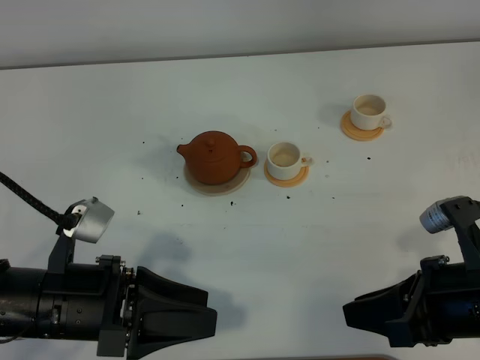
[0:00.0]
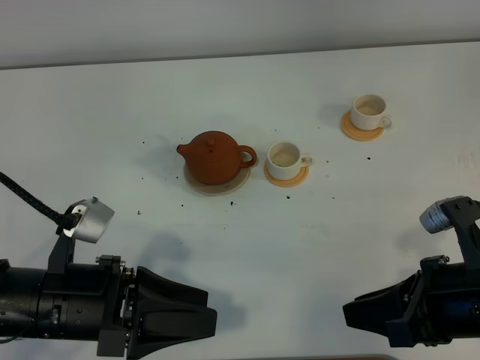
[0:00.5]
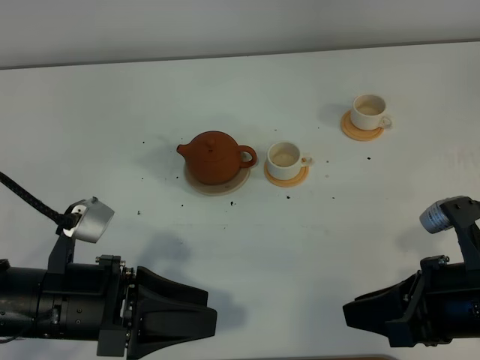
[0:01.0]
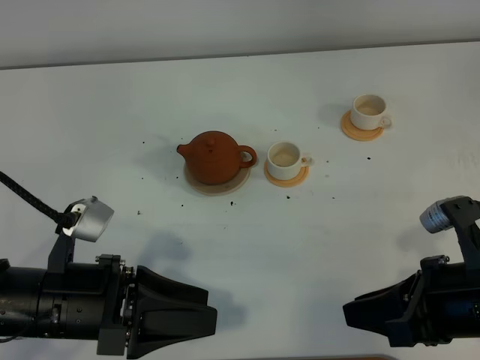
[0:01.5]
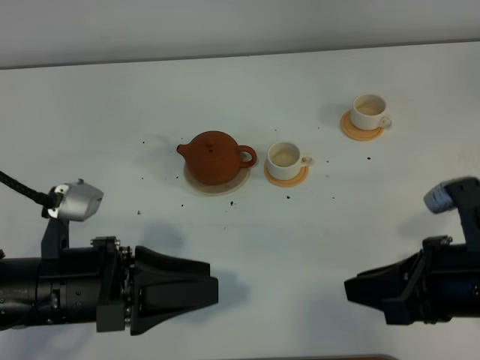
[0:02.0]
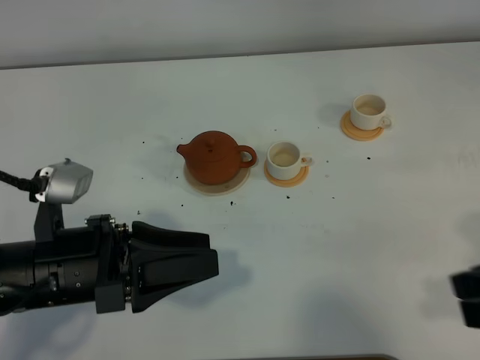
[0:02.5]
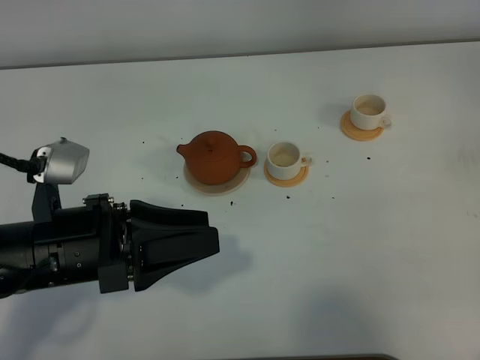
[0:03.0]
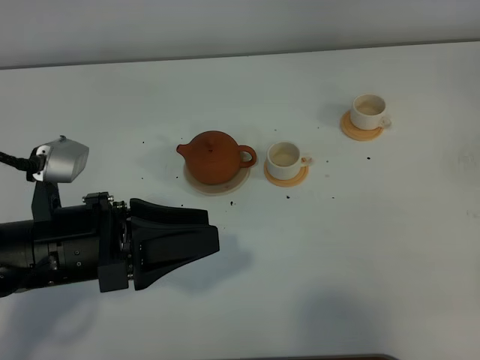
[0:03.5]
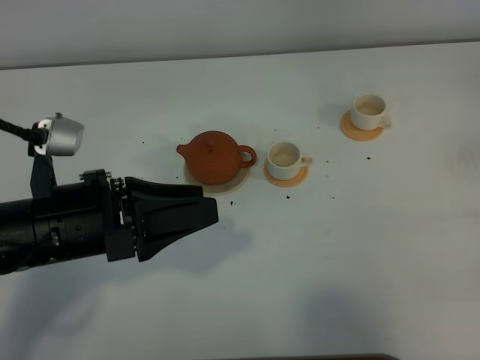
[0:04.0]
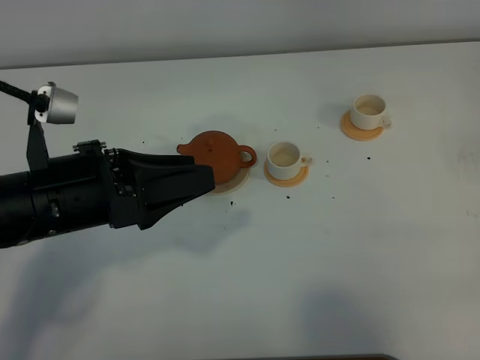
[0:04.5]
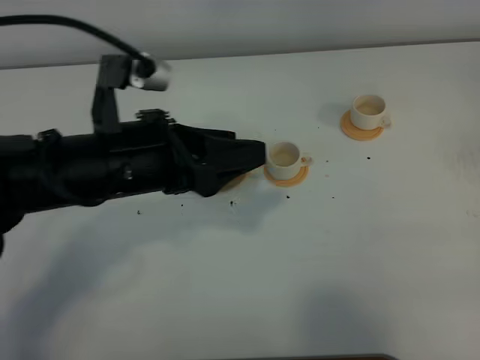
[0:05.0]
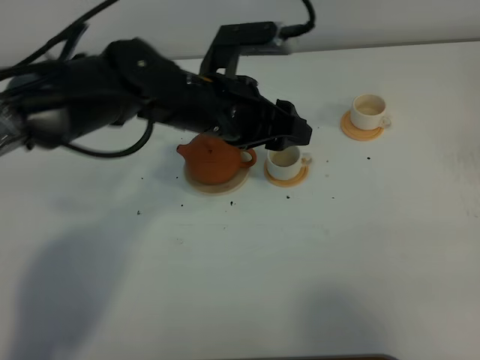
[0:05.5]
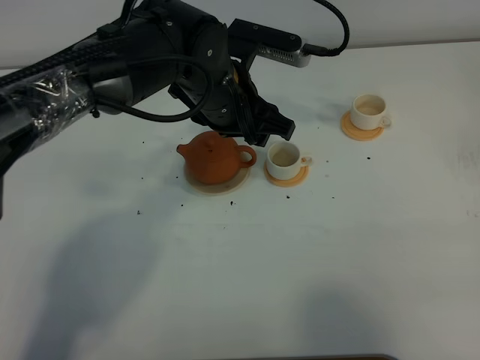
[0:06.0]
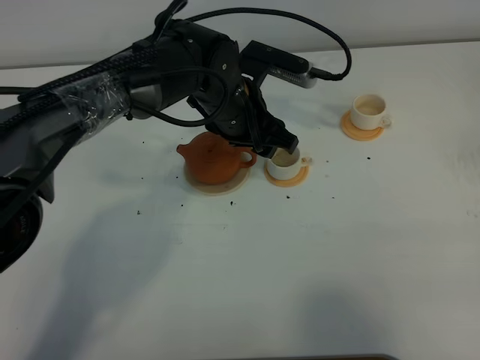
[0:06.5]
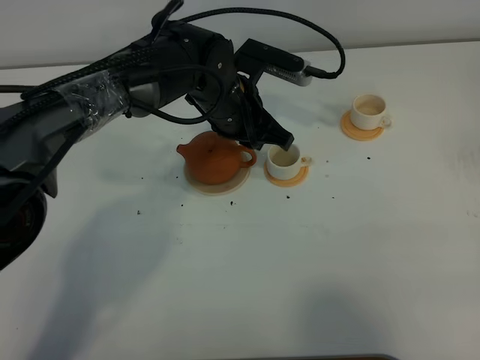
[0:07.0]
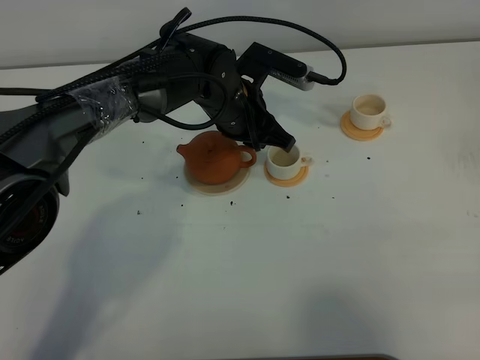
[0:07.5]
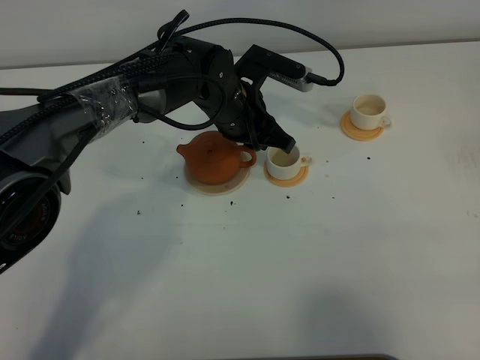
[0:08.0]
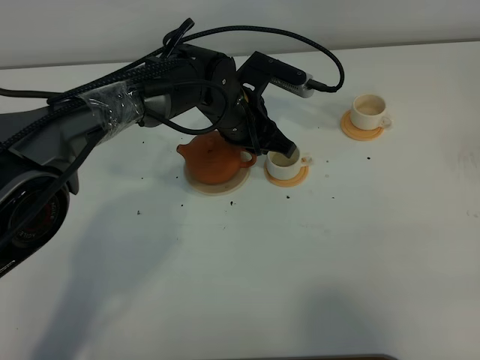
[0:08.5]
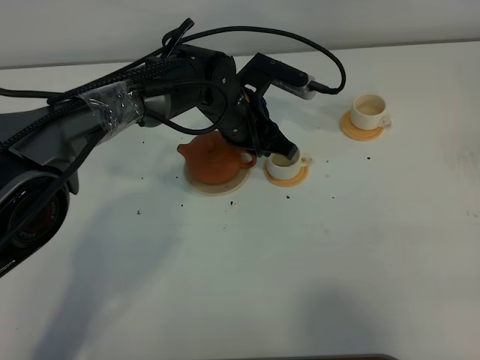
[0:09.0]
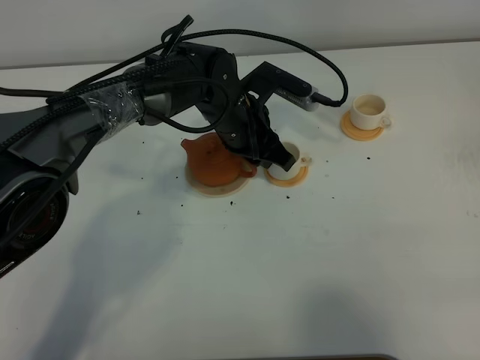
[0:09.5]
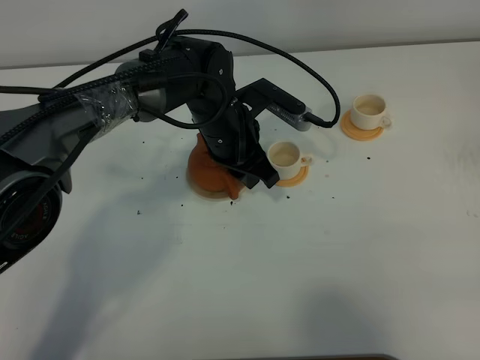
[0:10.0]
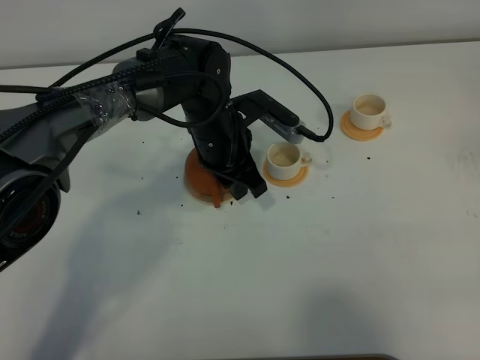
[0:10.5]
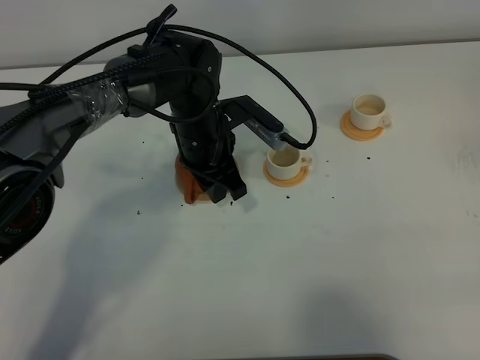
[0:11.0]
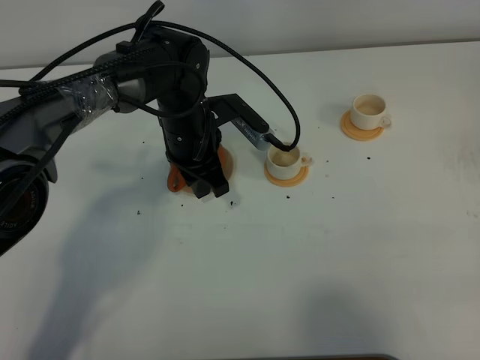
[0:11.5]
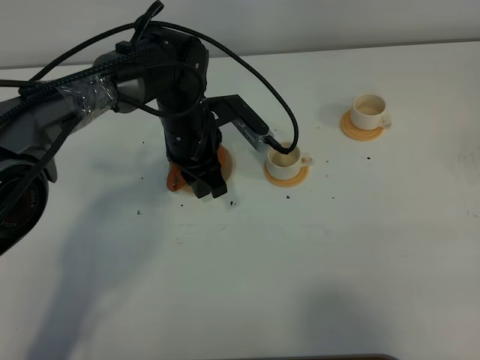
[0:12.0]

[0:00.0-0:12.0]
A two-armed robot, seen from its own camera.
Task of the whole recording: grasp the brown teapot and pour the tea into the two white teacups one by one, put the brown teapot back in its original place.
0:00.0 to 0:02.0: The grippers make only small movements.
0:02.0 to 0:04.0: The right gripper heads backward, to the right and upward, covering roughly 20 cm. Meanwhile the left gripper ends up approximately 5 cm from where it was.
0:04.0 to 0:06.0: The left gripper shifts about 25 cm forward and to the right.
0:06.0 to 0:08.0: The left gripper moves downward, approximately 5 cm, and closes up.
0:08.0 to 0:10.0: The grippers move only a little.
0:10.0 to 0:12.0: The grippers make only small movements.

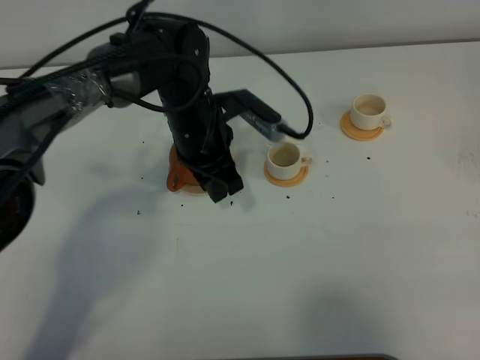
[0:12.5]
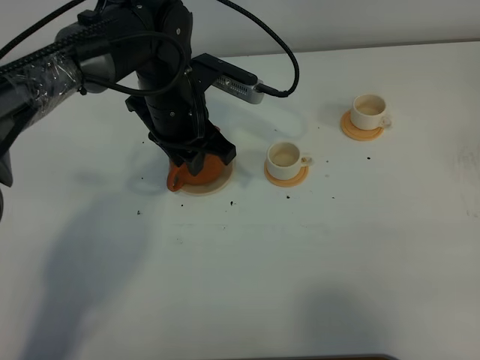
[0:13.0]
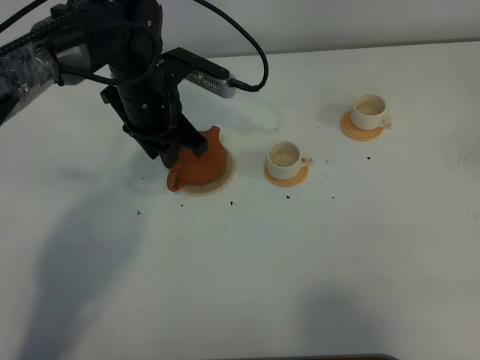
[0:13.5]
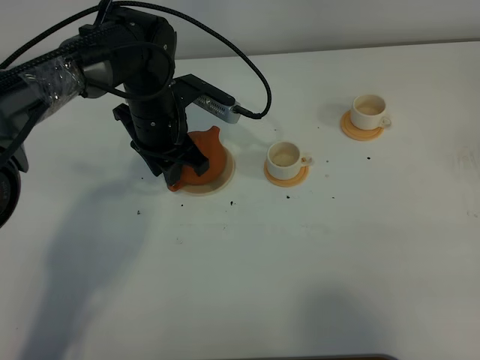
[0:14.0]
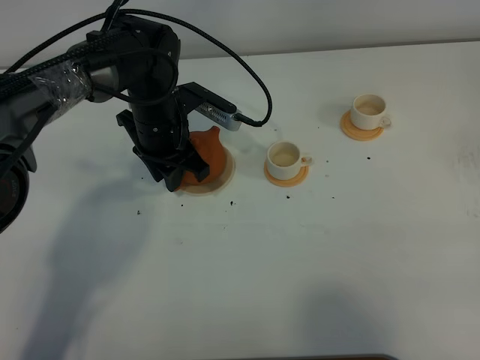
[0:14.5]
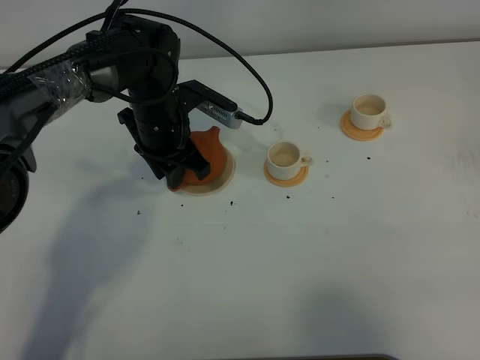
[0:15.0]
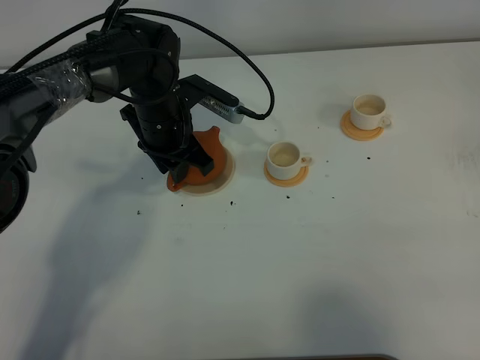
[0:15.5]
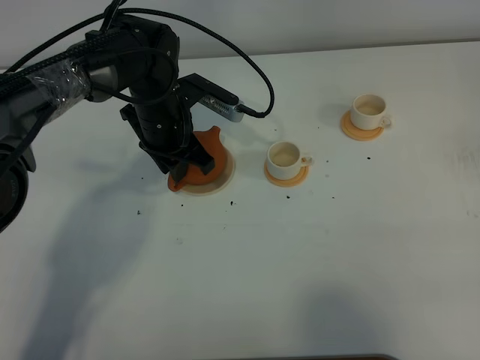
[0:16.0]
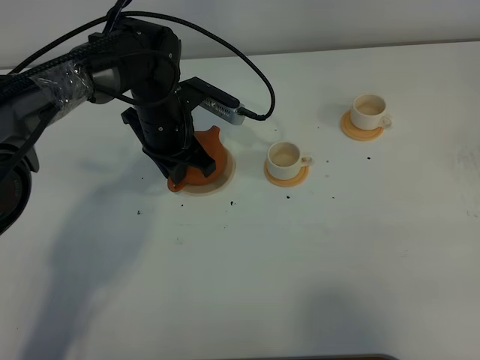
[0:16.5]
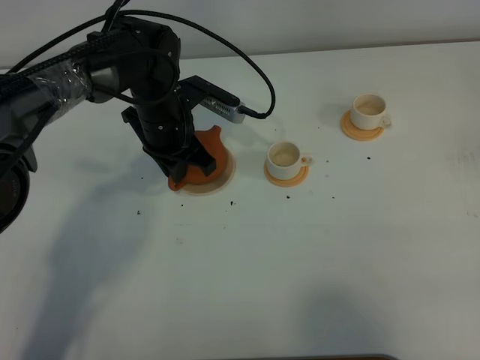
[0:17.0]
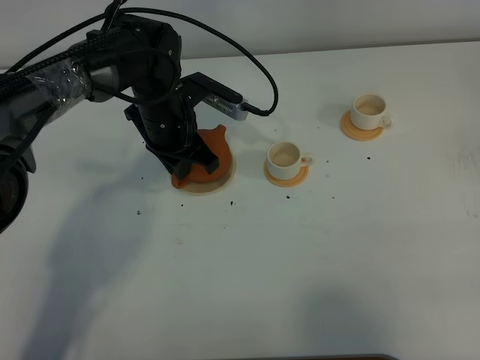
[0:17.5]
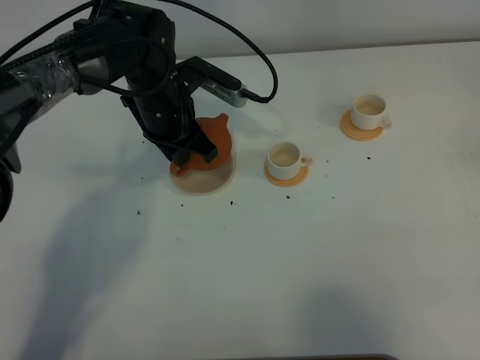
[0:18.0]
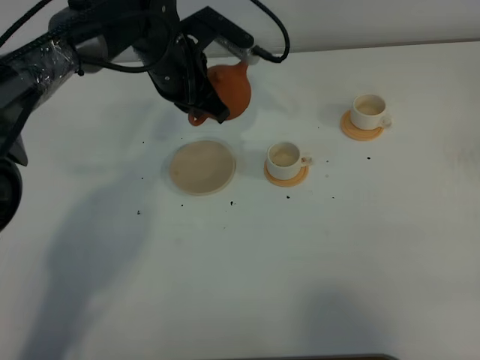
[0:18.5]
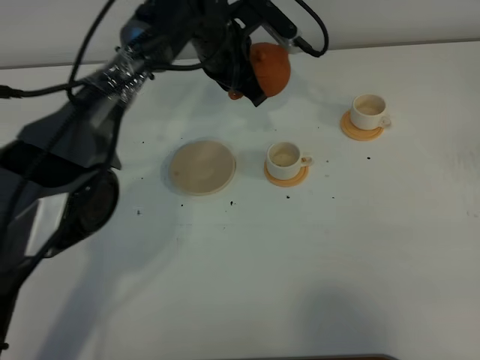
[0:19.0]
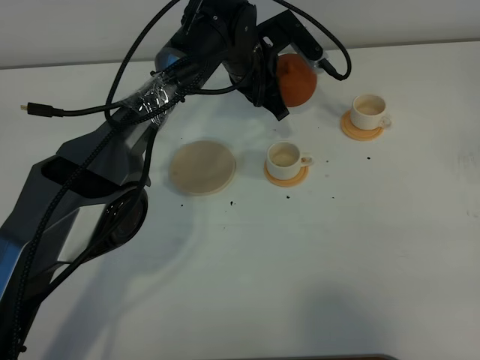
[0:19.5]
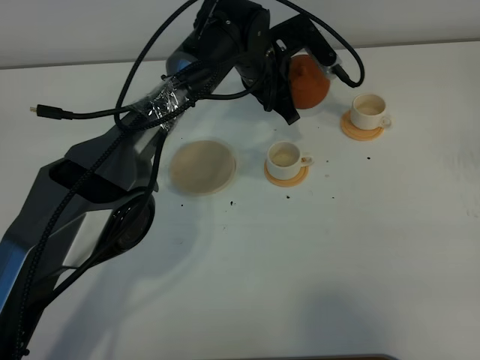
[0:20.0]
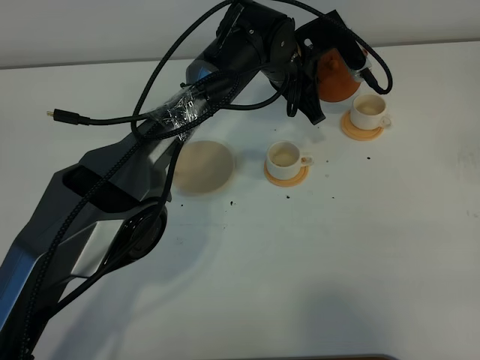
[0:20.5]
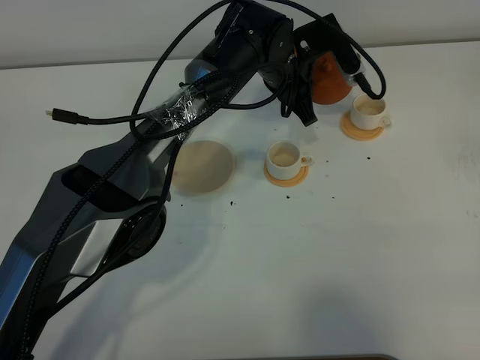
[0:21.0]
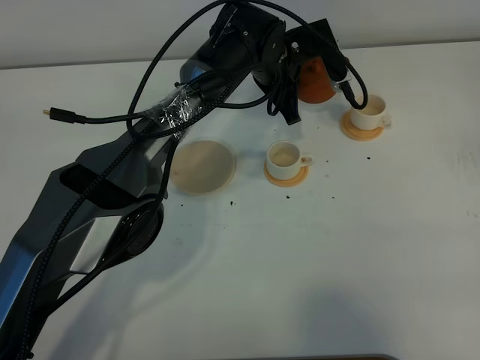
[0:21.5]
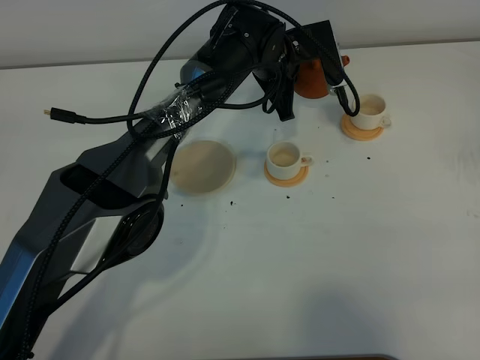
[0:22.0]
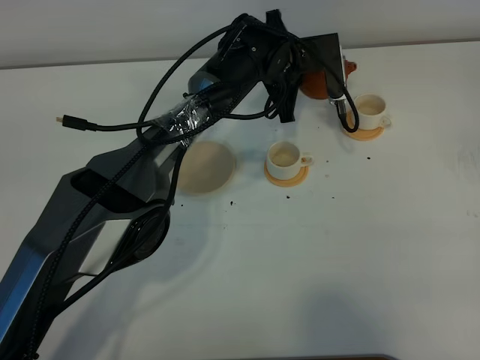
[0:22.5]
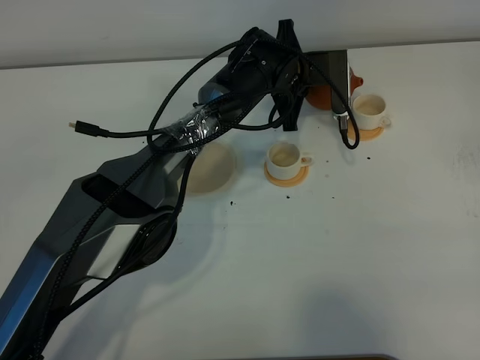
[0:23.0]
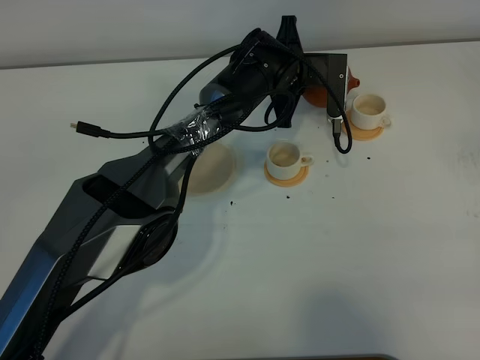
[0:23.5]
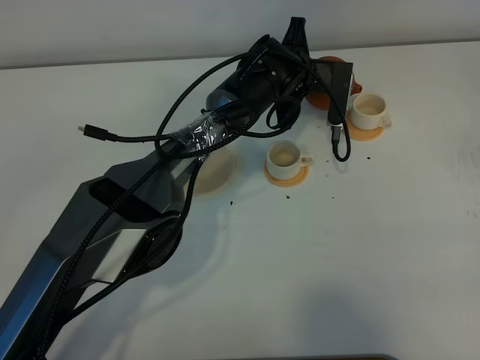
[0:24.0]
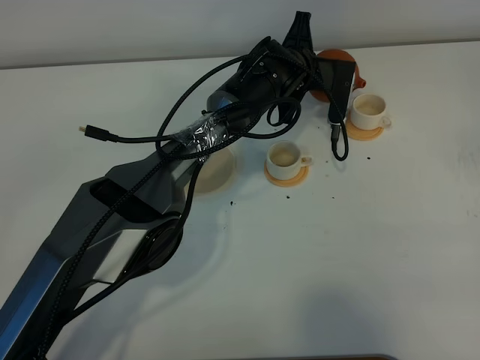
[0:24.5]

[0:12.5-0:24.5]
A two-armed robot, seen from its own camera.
Task of the whole recording: grasp the brown teapot and pour the tea into the two white teacups one by one, put the brown teapot back in its original place.
Step, 0:12.5 to 0:18.0: Pick up the teapot with the left gripper.
0:12.5 to 0:14.5: The left gripper travels to the left by about 5 cm.
0:14.5 to 0:16.5: The left gripper closes up.
0:16.5 to 0:18.5: The left gripper shifts some 5 cm upward.
0:18.5 to 0:20.5: The left gripper is displaced to the right by approximately 15 cm.

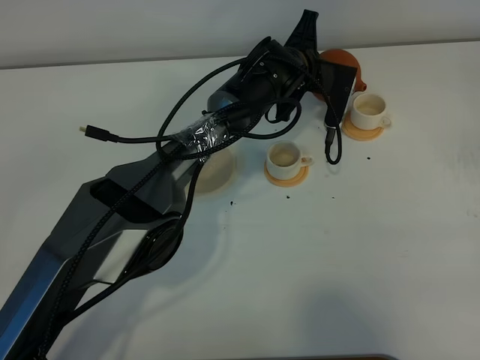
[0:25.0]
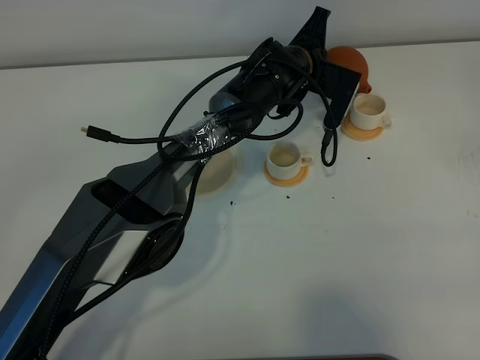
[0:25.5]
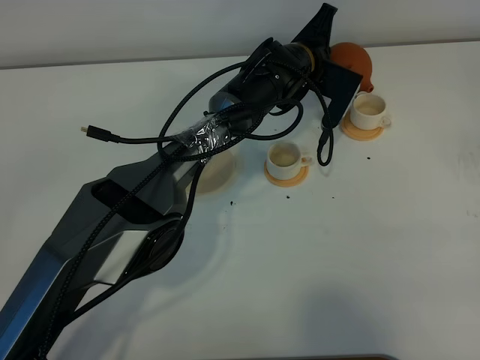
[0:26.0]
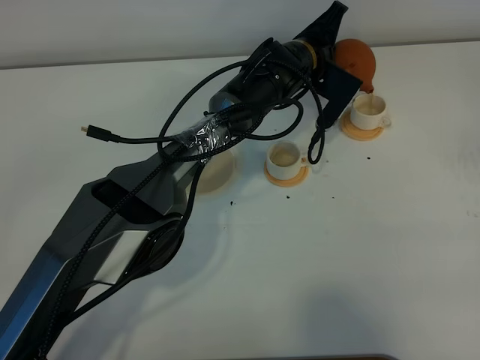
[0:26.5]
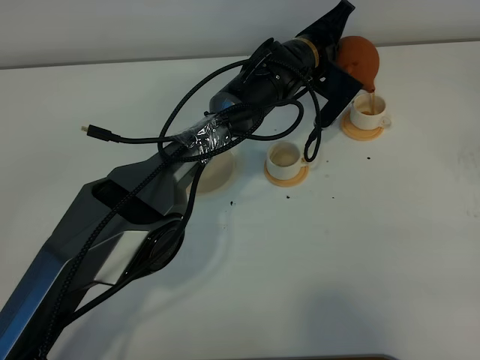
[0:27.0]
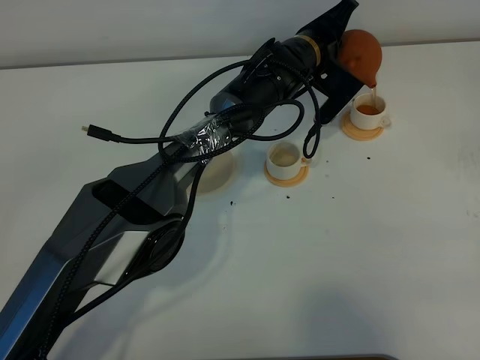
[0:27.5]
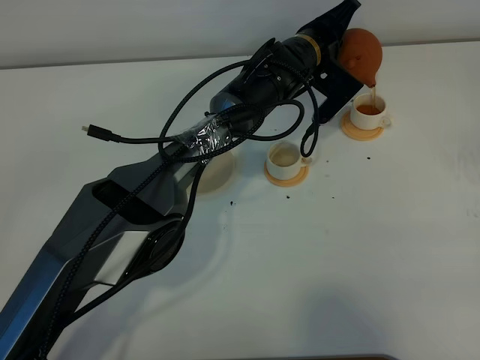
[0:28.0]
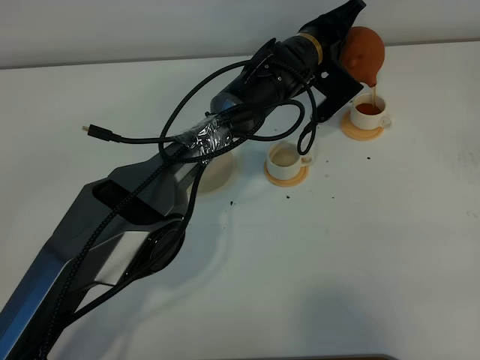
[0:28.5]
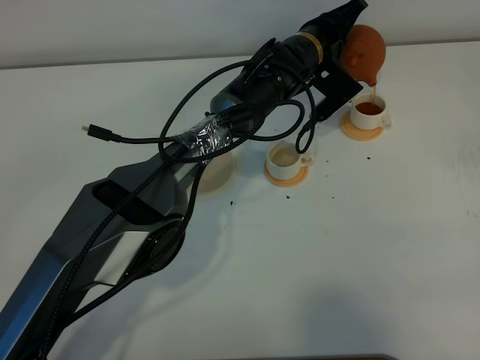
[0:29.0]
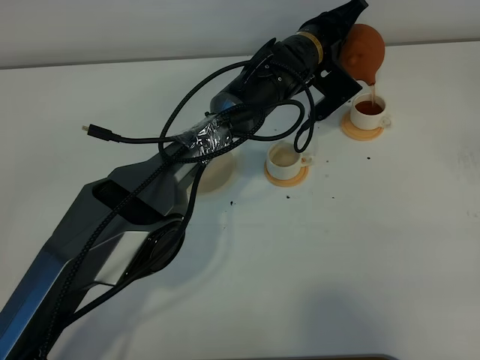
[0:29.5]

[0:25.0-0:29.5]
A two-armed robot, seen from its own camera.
Task of the whole recording: grasp the brown teapot and pour the tea into the two white teacups one by one, put the brown teapot back in its original place.
0:27.0 to 0:29.5: The grippers stay close to where they were, moving slightly.
